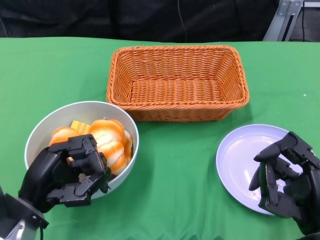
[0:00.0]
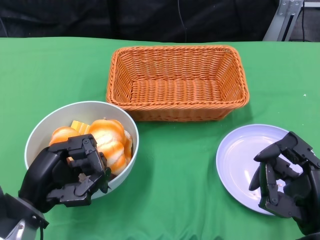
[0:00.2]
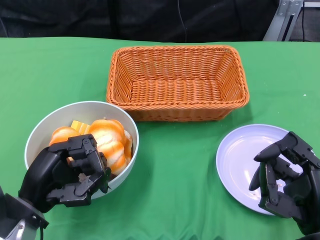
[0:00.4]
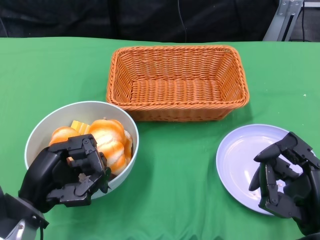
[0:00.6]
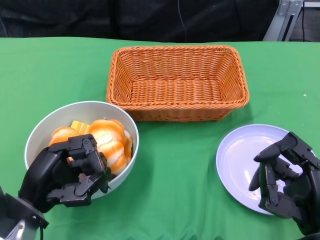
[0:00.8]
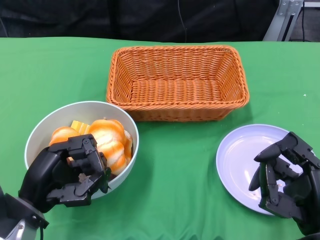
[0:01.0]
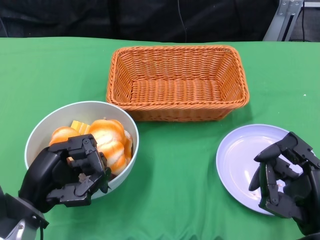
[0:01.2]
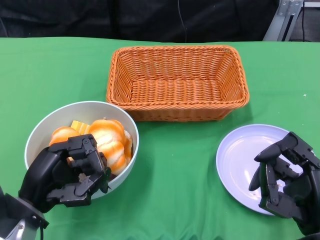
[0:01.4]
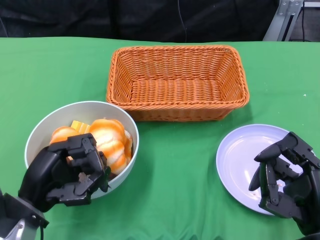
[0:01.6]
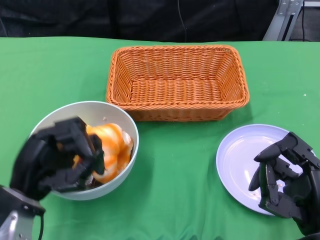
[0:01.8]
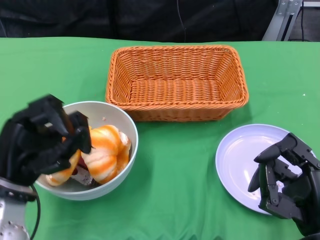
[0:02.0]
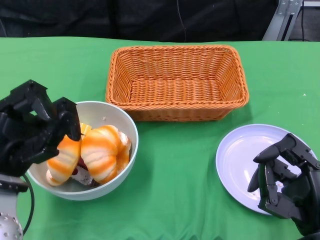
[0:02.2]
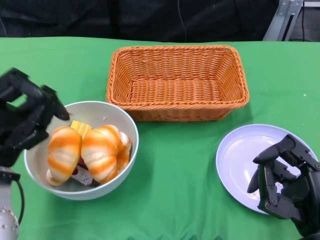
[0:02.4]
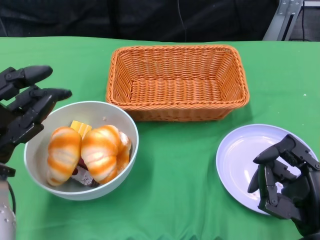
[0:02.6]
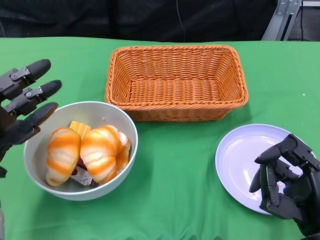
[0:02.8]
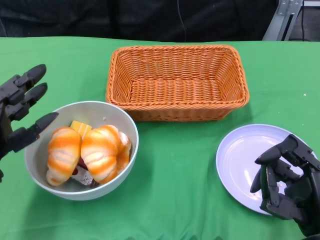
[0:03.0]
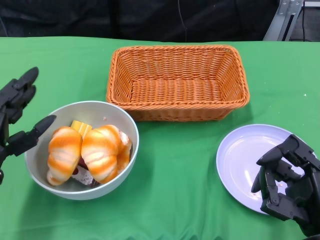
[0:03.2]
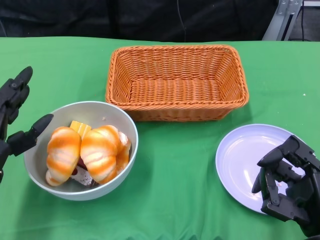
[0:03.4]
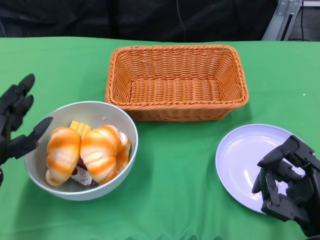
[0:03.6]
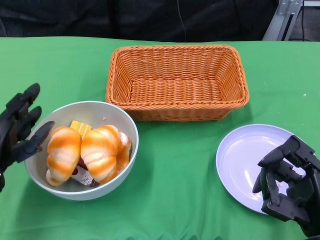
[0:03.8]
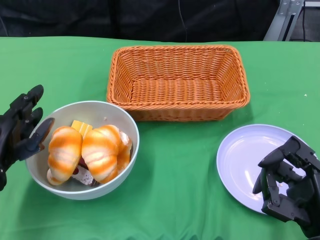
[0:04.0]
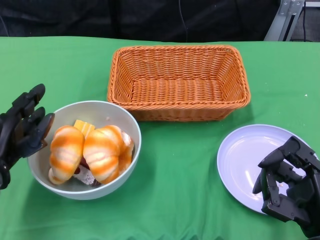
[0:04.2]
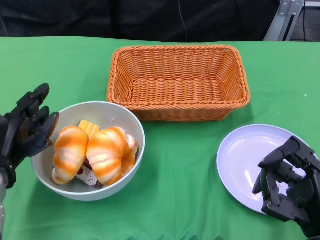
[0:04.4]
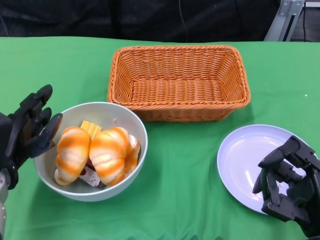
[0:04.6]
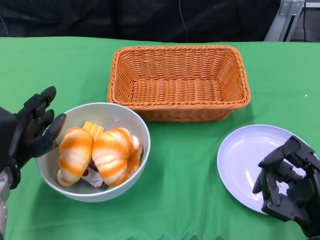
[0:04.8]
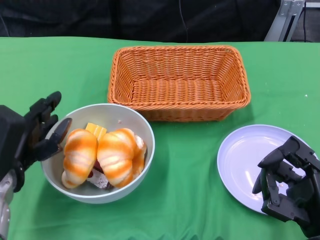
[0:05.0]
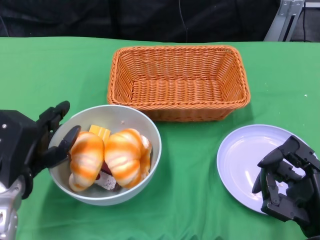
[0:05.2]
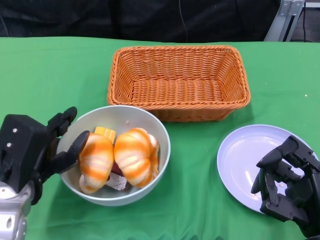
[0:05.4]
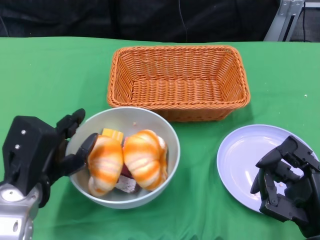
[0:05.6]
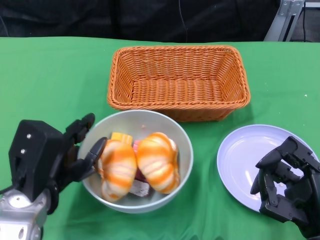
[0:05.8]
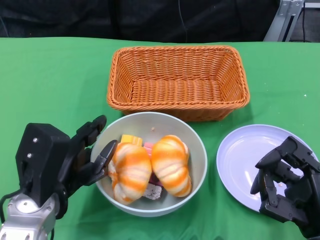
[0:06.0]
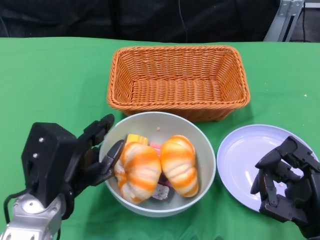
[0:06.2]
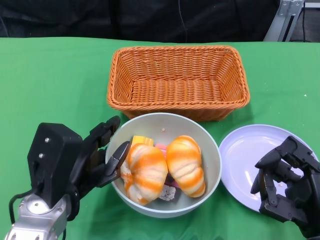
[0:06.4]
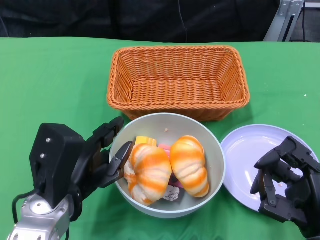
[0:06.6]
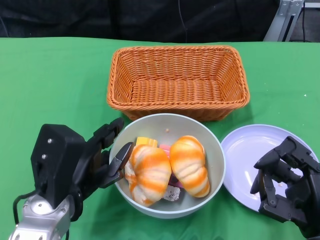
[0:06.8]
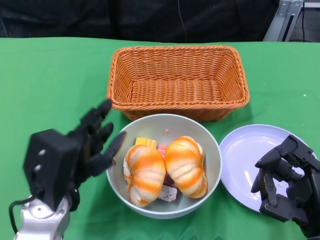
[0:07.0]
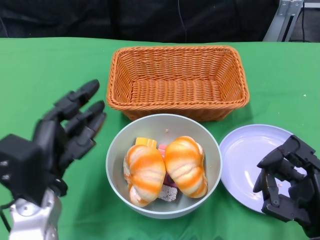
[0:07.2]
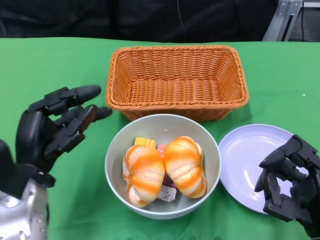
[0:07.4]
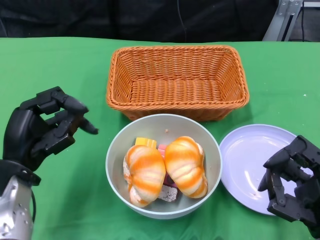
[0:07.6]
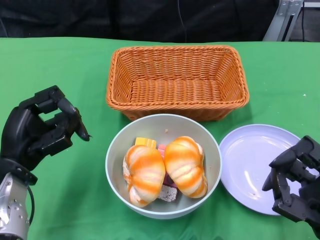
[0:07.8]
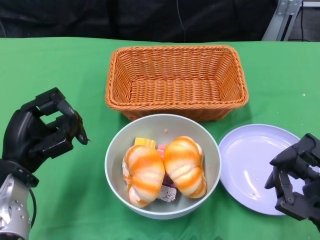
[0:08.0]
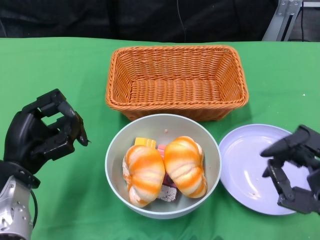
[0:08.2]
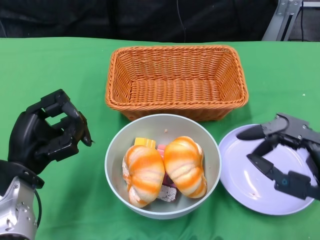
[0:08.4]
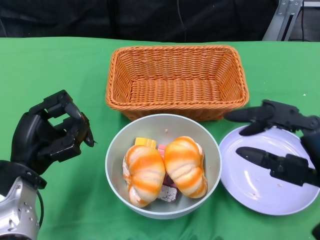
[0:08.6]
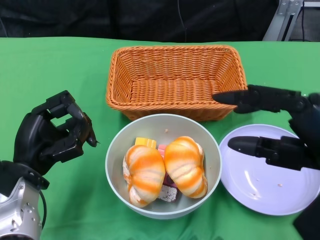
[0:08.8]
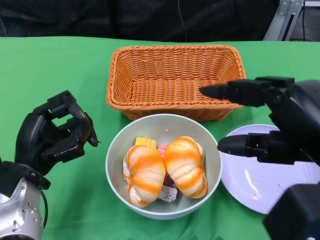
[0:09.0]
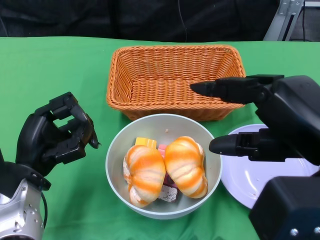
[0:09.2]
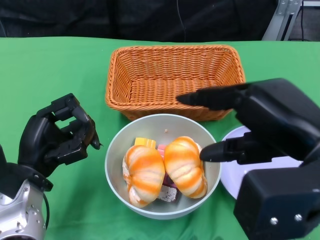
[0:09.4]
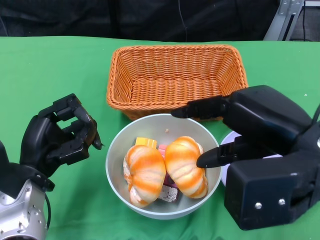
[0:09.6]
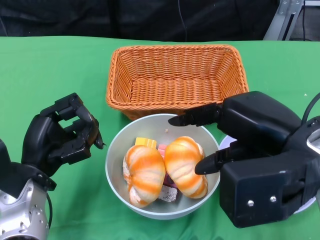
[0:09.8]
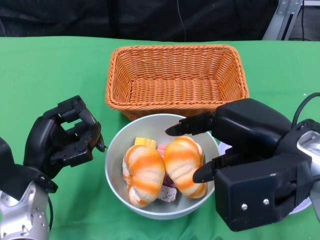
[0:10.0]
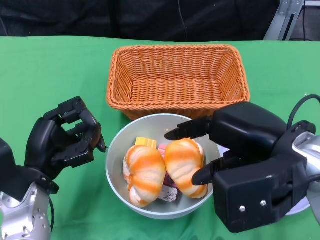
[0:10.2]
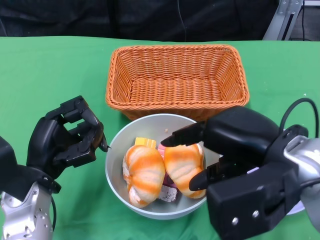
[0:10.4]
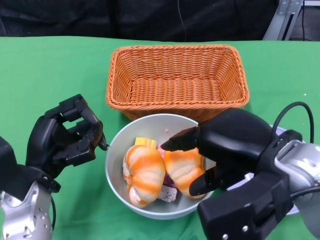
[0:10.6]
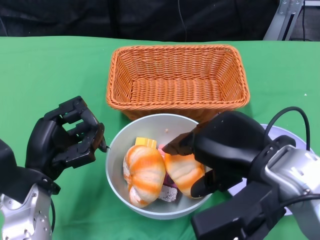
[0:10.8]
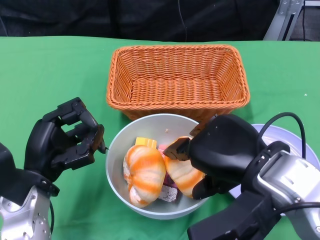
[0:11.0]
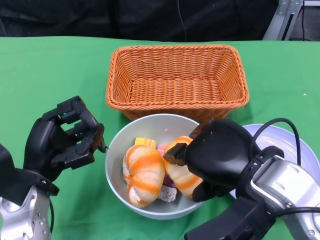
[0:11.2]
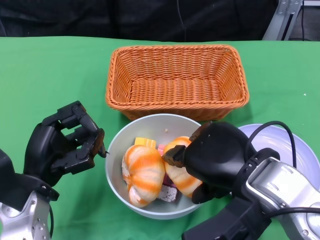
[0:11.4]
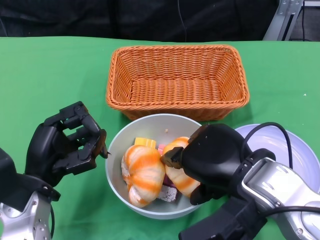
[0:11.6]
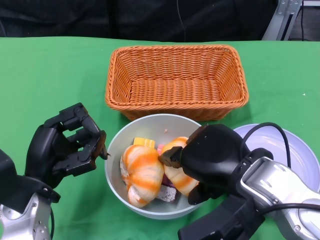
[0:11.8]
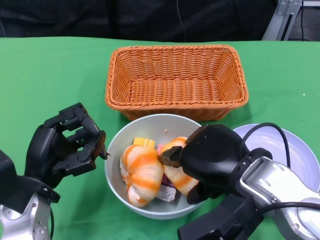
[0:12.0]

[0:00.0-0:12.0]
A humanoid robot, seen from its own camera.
Step, 0:00.0 to 0:07.4: Push the bowl to the center of the table using the left gripper.
0:01.6 to 0:03.0: The left hand ends up about 5 cm from where it was.
0:04.4 to 0:06.0: The left hand heads to the right, covering approximately 5 cm.
0:07.6 to 0:09.0: The right hand heads upward, covering some 15 cm.
0:09.0 to 0:10.4: The right hand shifts by approximately 5 cm.
0:10.4 to 0:12.0: The right hand changes place by approximately 5 cm.

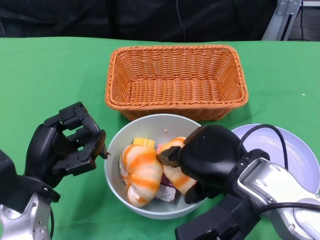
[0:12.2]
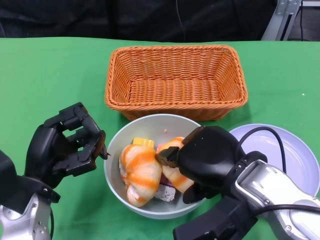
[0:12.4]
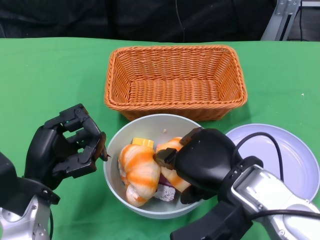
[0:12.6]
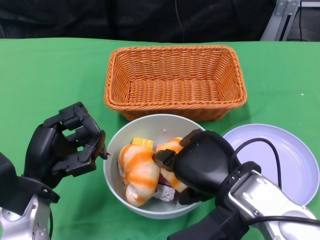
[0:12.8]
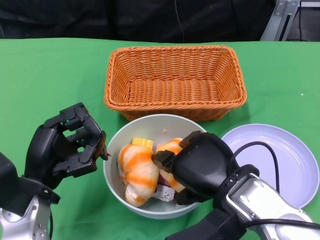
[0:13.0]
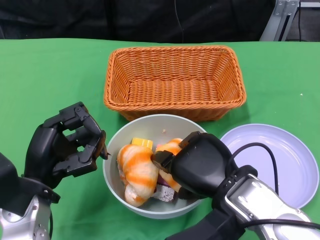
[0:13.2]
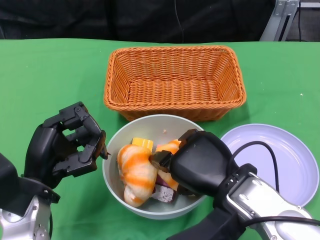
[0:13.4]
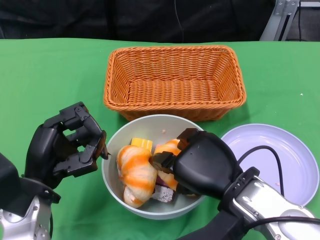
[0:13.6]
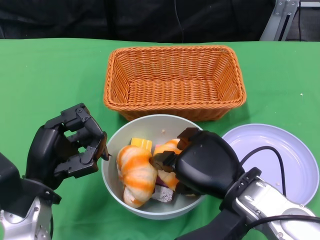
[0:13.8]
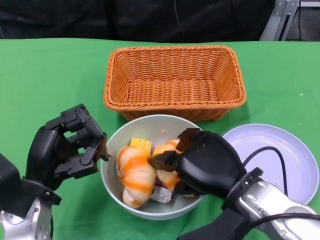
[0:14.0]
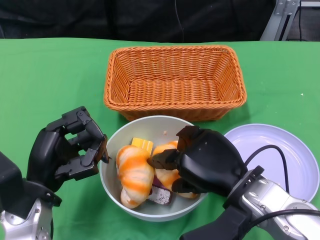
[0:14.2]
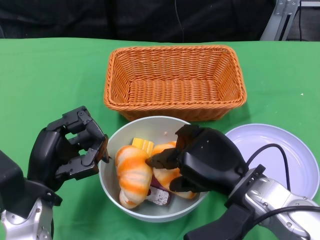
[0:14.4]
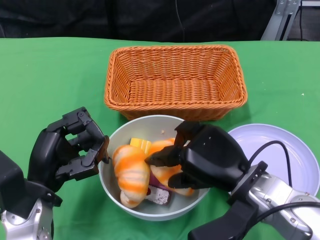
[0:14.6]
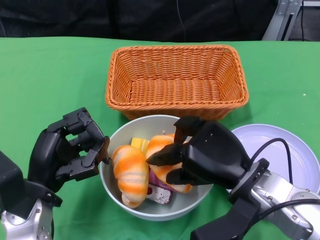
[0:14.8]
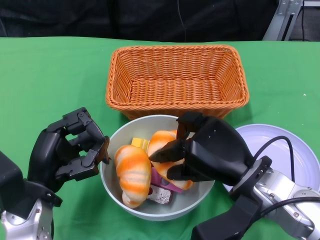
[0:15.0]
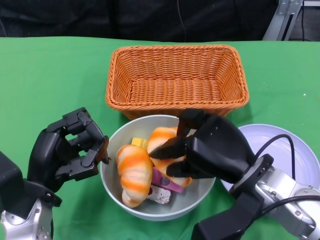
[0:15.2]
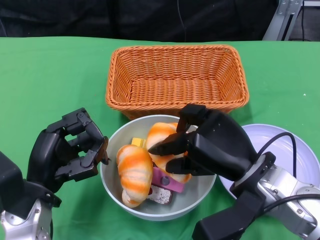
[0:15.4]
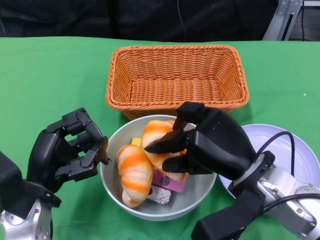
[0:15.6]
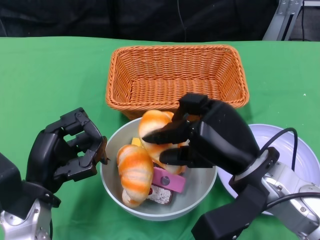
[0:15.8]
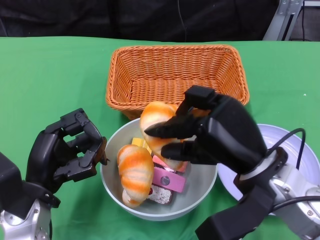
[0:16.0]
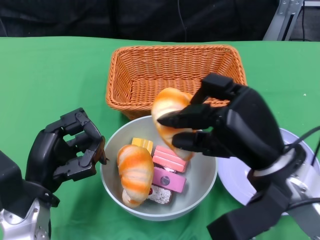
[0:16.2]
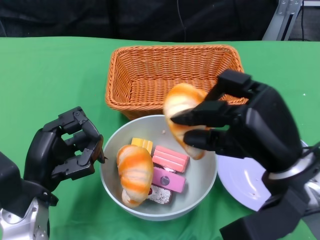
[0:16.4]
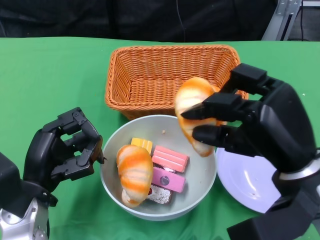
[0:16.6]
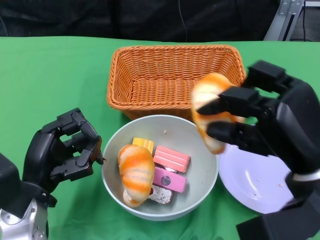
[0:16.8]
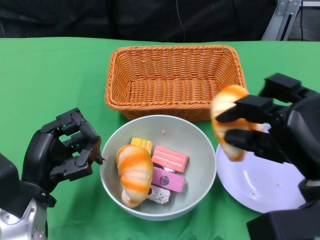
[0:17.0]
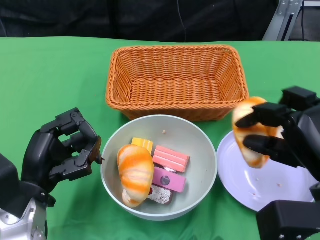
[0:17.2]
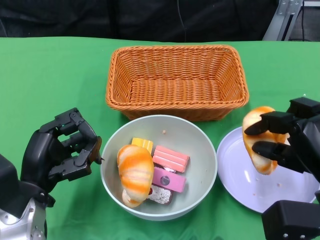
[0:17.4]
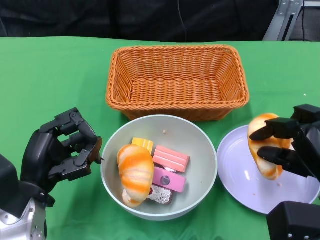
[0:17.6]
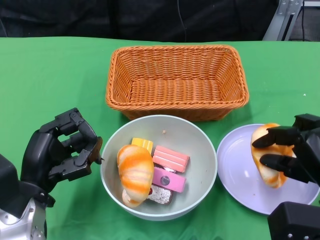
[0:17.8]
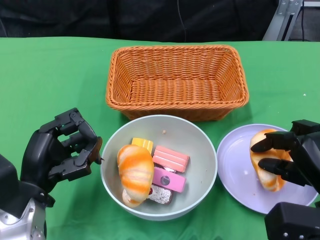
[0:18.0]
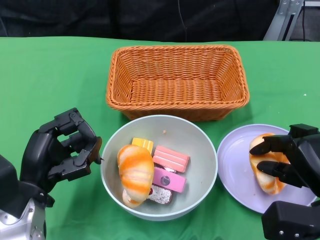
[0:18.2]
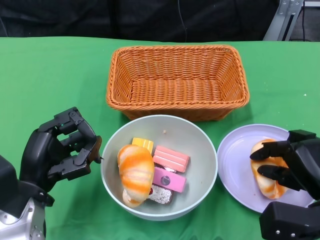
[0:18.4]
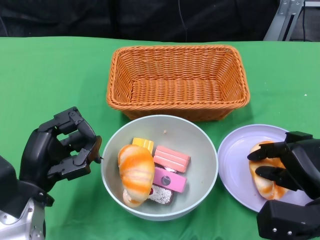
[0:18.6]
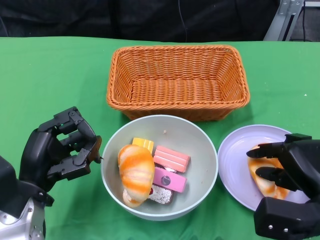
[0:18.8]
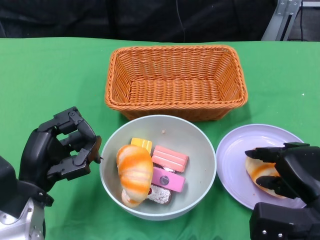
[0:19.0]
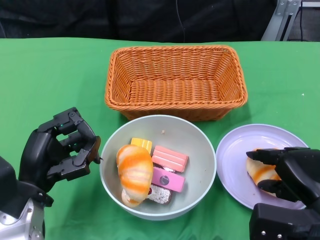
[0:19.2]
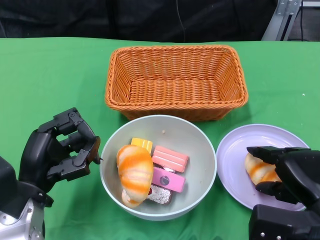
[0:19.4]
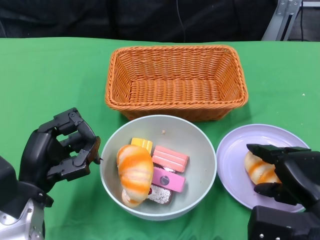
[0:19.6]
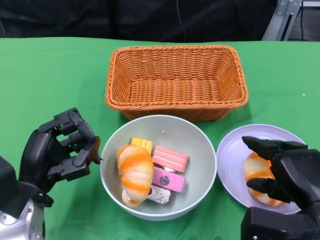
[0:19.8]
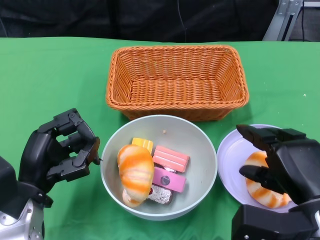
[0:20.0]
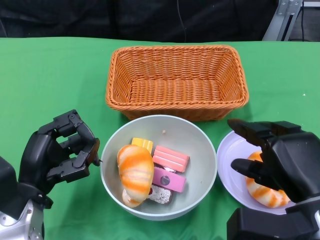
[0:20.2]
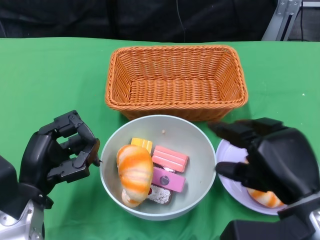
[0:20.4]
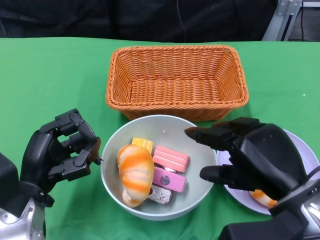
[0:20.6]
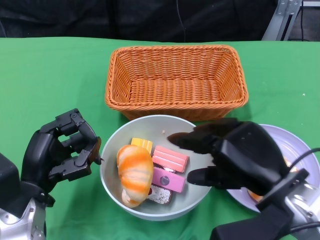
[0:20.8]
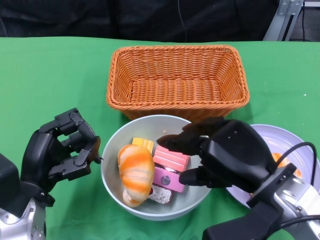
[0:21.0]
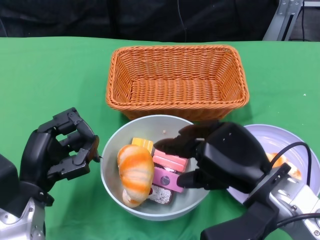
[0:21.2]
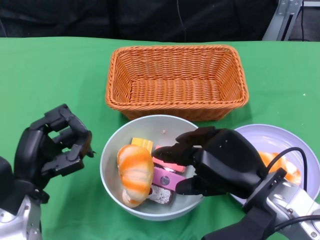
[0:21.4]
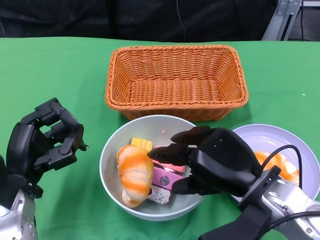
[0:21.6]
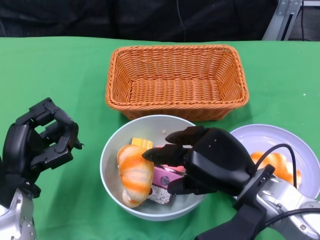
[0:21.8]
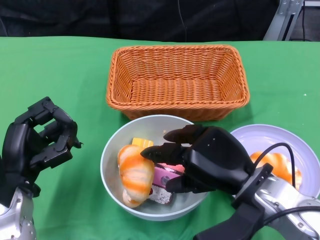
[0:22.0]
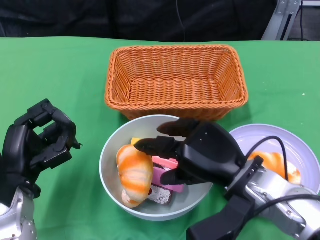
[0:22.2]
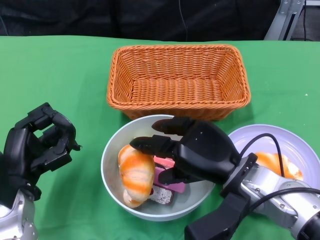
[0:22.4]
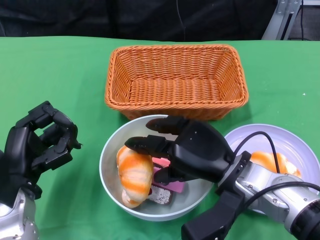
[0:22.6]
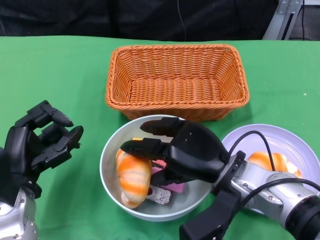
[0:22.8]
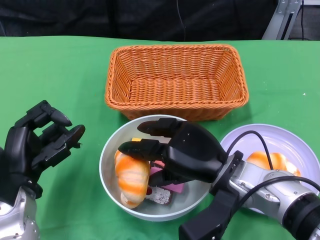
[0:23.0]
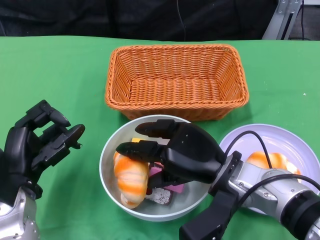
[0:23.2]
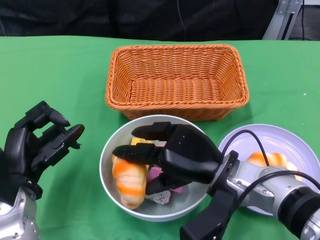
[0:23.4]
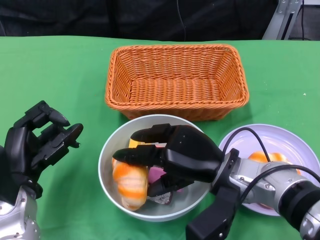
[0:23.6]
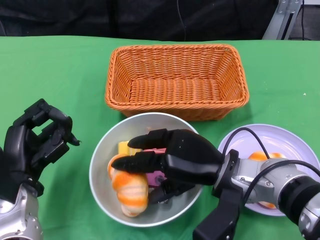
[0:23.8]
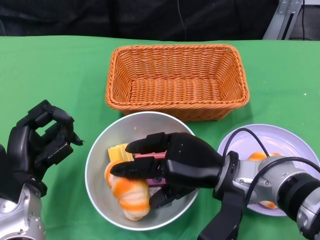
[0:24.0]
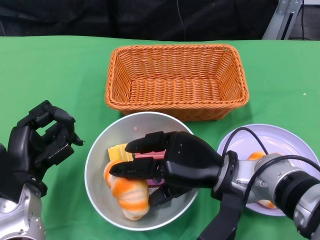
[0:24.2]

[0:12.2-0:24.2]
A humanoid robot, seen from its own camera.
Step, 0:12.2 to 0:20.0: Pick up the bread with the right gripper and place it on the plate.
0:15.2 to 0:16.6: The right hand shifts roughly 5 cm upward.
0:16.6 to 0:18.2: The right hand shifts approximately 10 cm downward and to the right.
0:18.2 to 0:19.8: There are only small adjustments of the hands.
0:19.8 to 0:21.2: The right hand travels to the left and upward by roughly 10 cm.
0:21.2 to 0:22.6: The right hand ends up about 5 cm from where it was.
